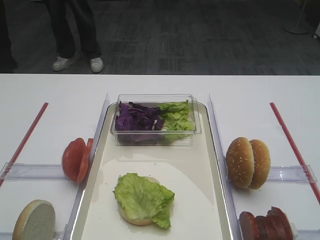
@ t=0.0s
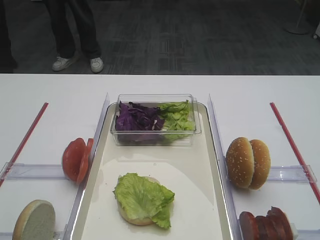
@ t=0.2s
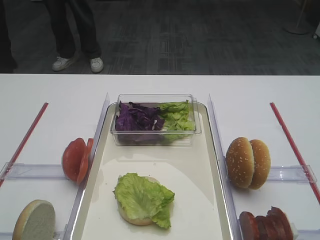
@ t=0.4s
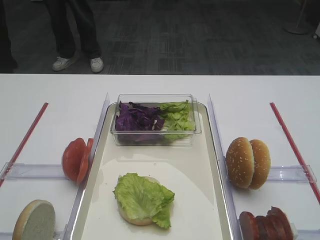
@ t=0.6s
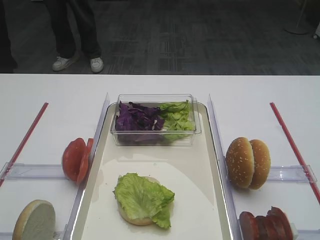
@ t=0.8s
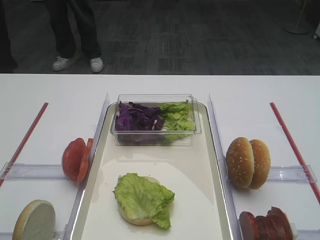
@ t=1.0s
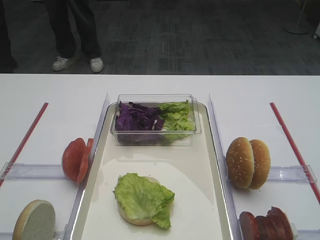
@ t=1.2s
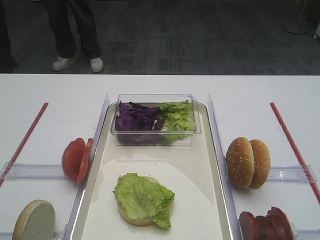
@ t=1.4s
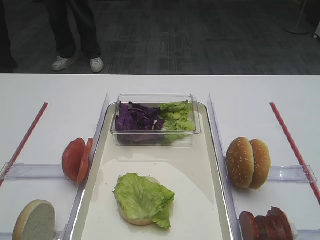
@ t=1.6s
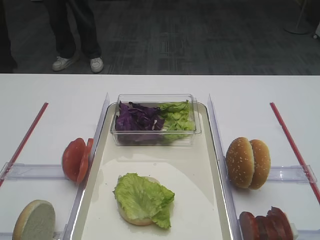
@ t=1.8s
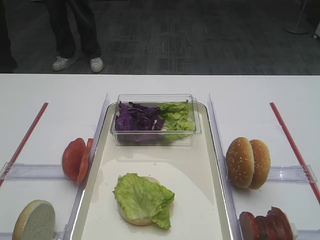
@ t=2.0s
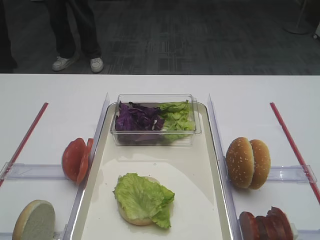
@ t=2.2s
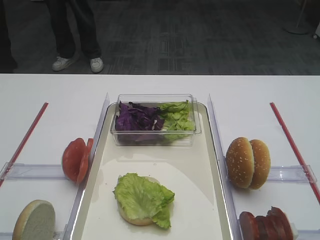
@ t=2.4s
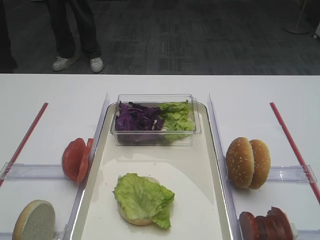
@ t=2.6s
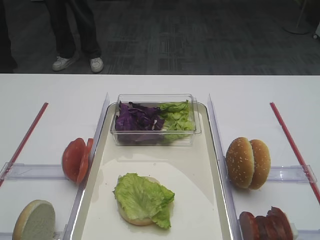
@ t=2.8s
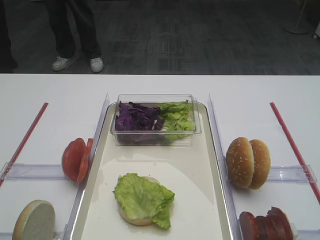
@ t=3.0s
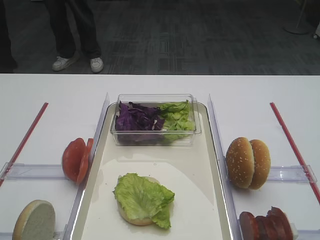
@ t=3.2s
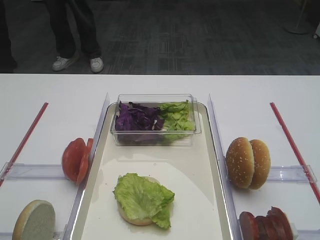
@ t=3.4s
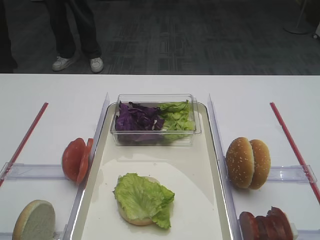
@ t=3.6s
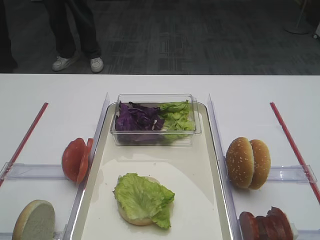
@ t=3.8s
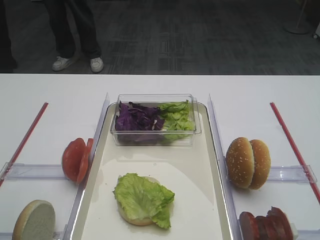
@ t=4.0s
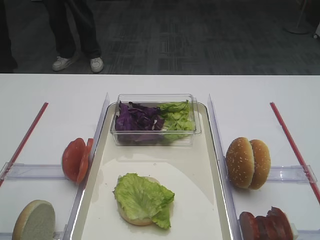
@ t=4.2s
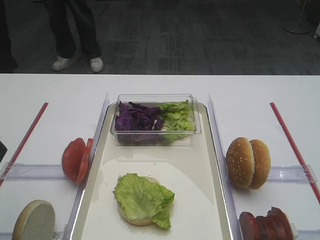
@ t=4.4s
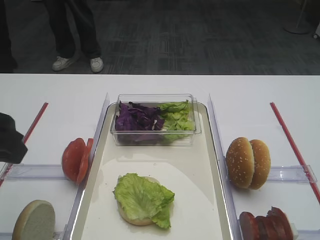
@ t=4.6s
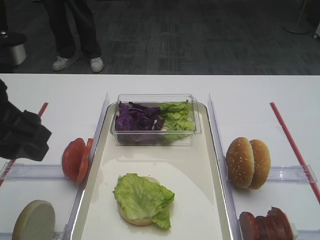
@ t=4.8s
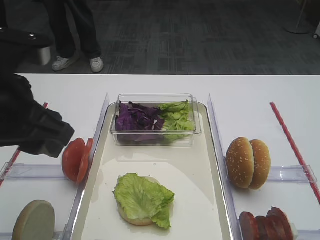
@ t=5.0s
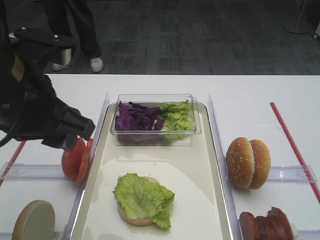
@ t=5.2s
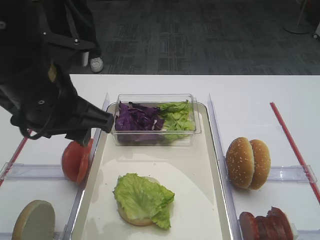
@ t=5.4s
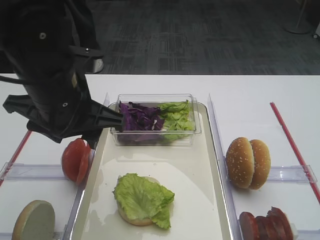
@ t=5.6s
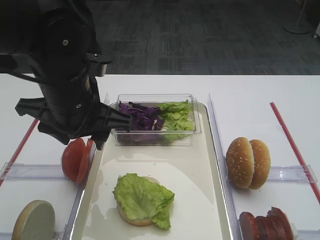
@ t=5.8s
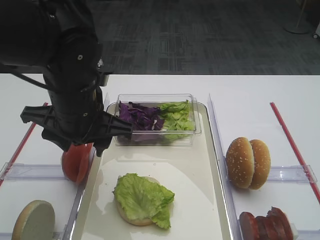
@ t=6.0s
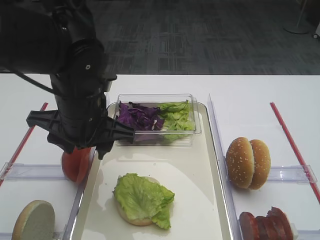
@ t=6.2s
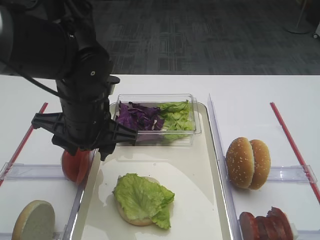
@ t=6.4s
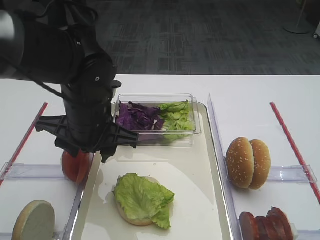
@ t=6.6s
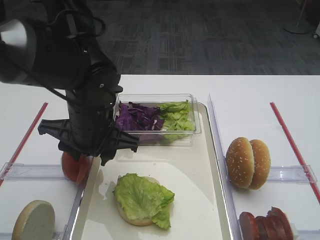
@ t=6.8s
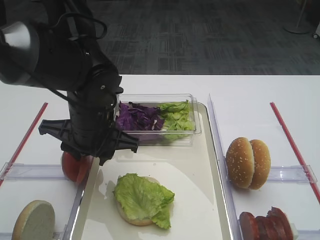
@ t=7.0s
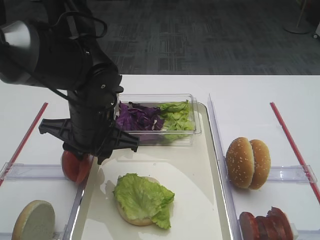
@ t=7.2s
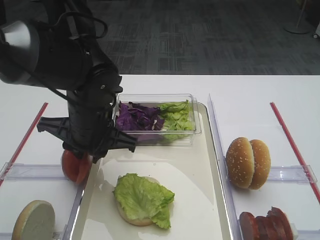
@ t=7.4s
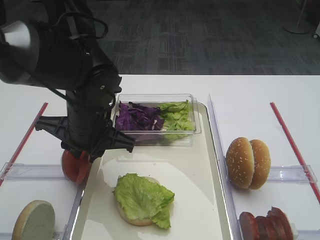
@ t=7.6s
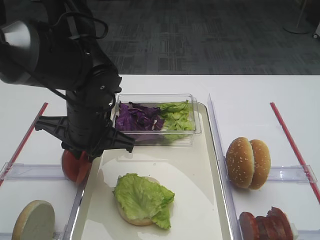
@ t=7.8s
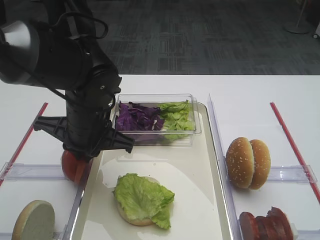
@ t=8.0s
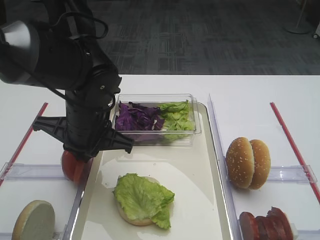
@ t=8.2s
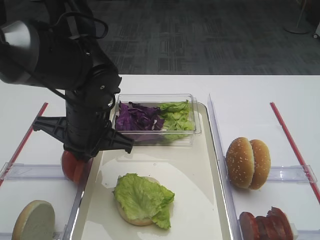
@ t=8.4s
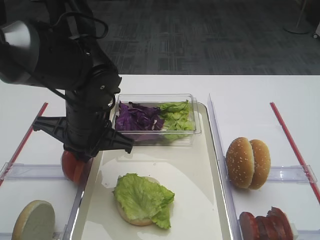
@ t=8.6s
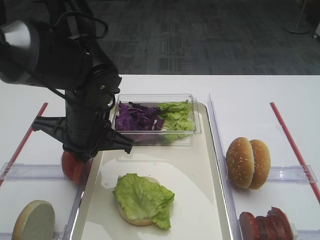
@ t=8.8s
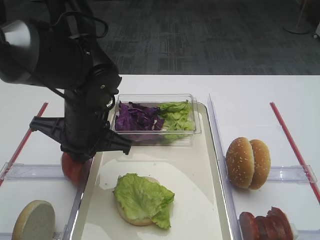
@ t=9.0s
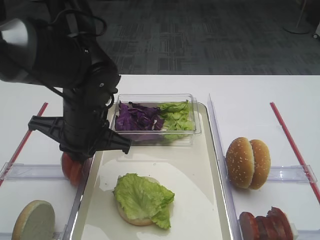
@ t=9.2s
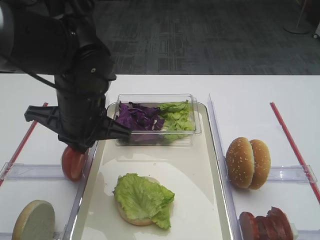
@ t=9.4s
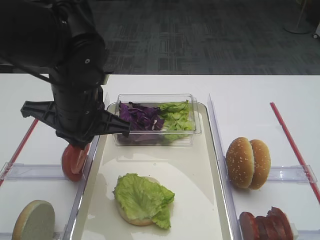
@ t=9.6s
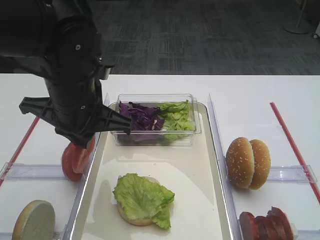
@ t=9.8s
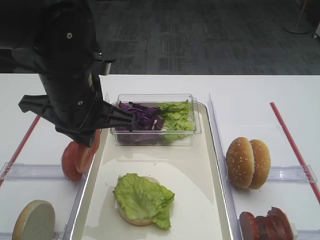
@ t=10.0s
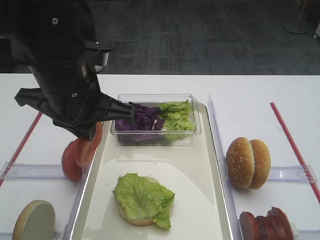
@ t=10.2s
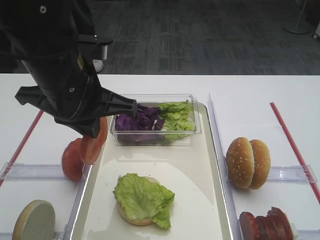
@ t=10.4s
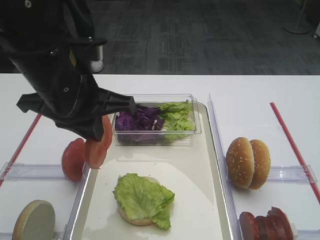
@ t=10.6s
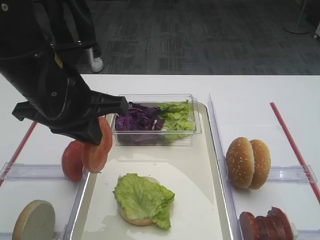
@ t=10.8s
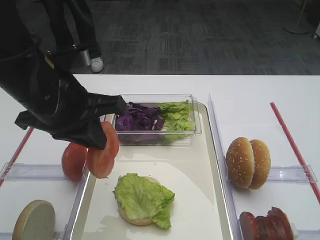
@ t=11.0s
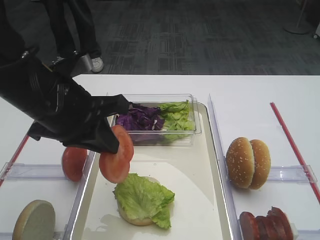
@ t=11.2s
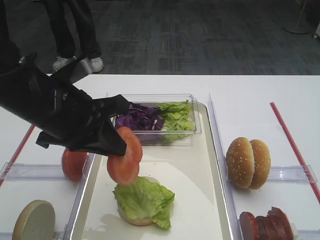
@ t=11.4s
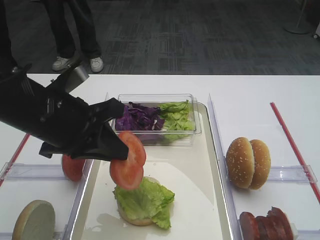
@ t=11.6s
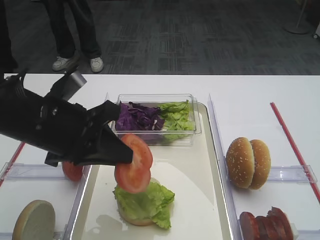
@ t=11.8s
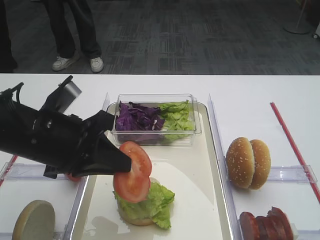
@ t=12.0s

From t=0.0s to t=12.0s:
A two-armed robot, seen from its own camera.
Step, from t=0.0s to t=9.6s: Pick up the tomato slice with the left gripper.
From t=4.4s to t=6.0s: The left gripper moves to the right, forward and downward, roughly 20 cm.
From t=6.0s to t=7.6s: The left gripper moves downward, some 5 cm, and closes.
From t=7.6s to t=9.0s: The two grippers keep their place.
From t=9.0s to t=10.4s: The left gripper heads upward, covering about 10 cm.
From t=10.4s to t=12.0s: The left gripper goes some 5 cm downward.

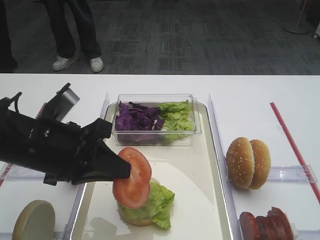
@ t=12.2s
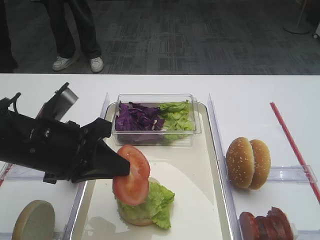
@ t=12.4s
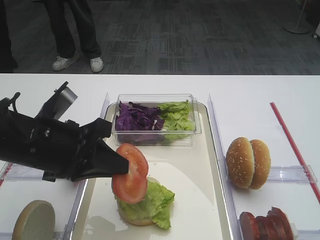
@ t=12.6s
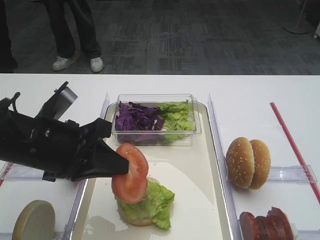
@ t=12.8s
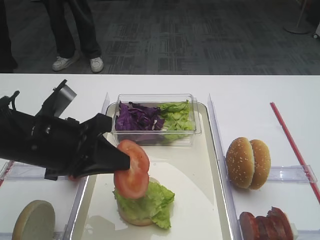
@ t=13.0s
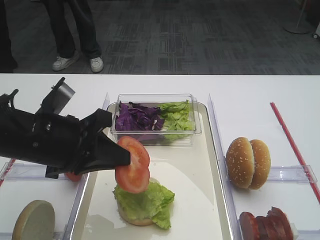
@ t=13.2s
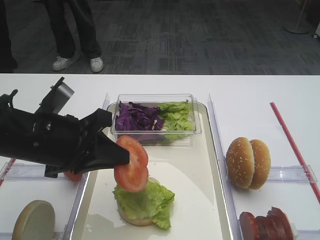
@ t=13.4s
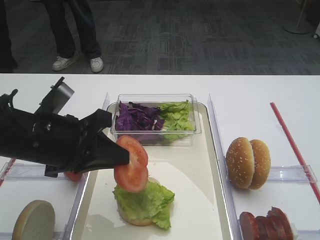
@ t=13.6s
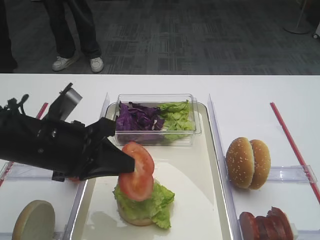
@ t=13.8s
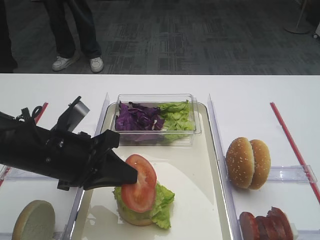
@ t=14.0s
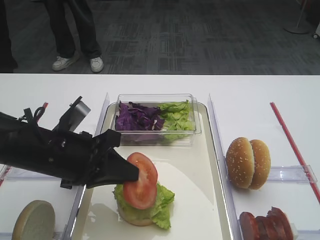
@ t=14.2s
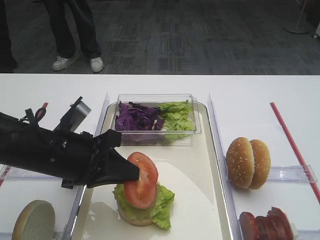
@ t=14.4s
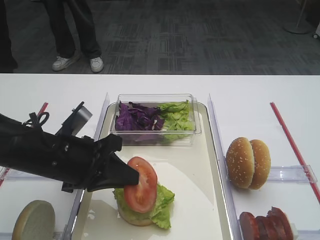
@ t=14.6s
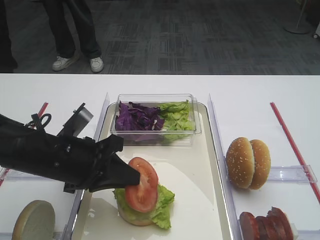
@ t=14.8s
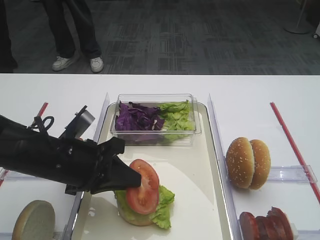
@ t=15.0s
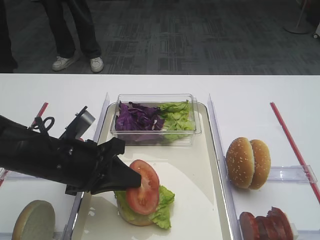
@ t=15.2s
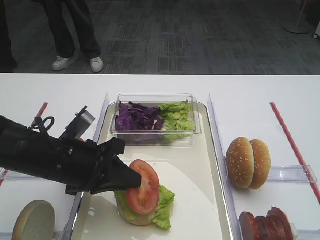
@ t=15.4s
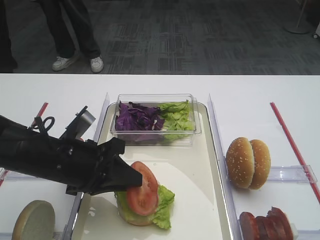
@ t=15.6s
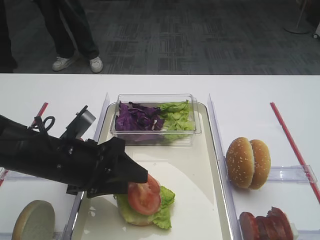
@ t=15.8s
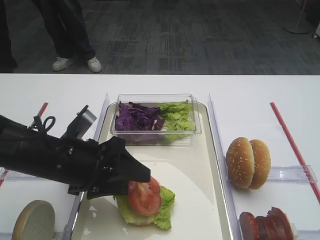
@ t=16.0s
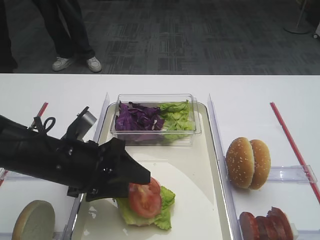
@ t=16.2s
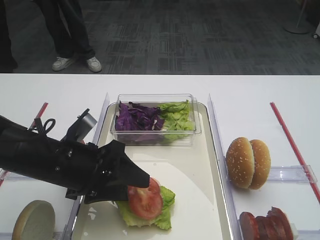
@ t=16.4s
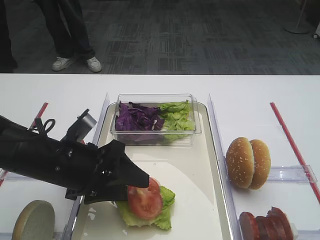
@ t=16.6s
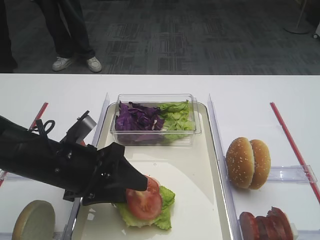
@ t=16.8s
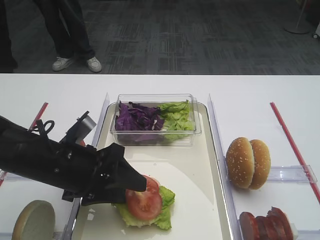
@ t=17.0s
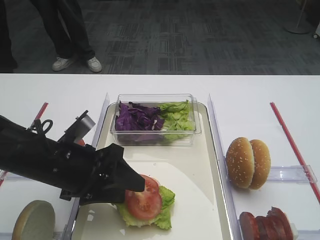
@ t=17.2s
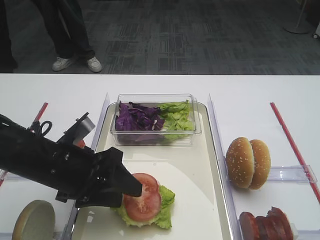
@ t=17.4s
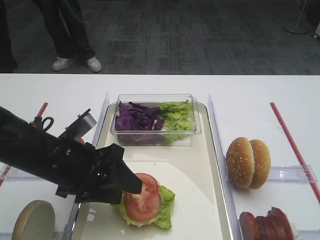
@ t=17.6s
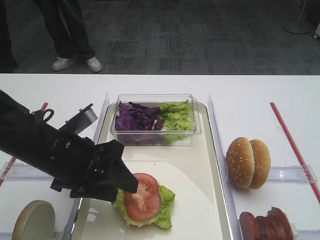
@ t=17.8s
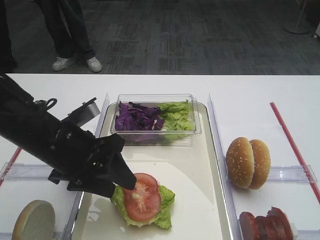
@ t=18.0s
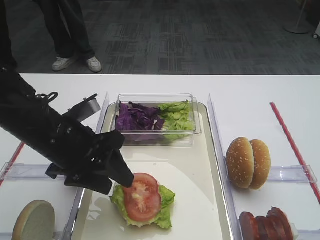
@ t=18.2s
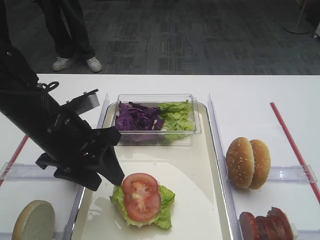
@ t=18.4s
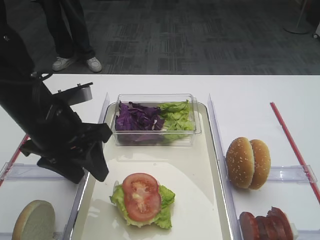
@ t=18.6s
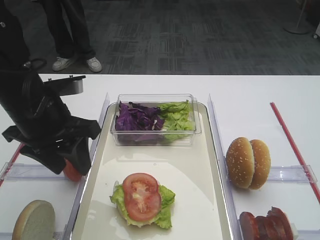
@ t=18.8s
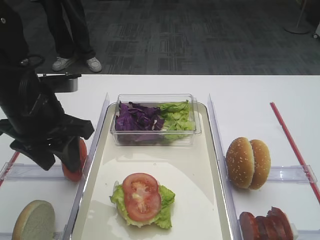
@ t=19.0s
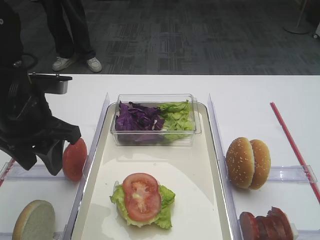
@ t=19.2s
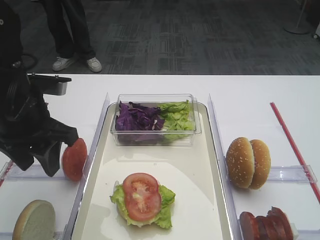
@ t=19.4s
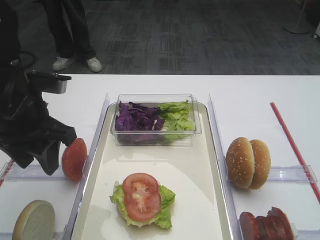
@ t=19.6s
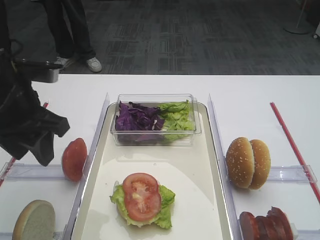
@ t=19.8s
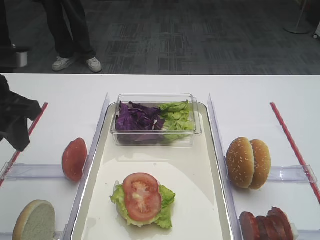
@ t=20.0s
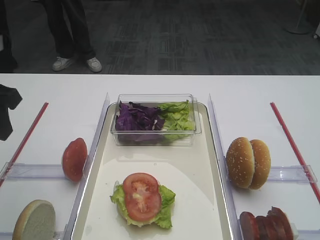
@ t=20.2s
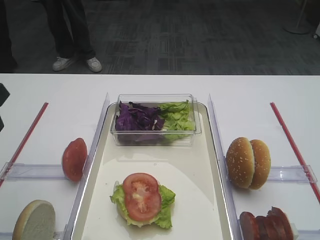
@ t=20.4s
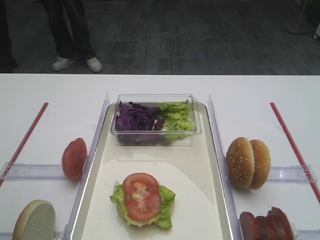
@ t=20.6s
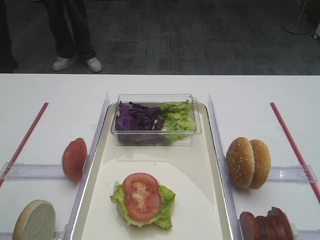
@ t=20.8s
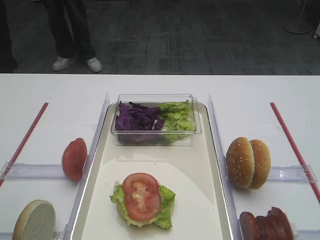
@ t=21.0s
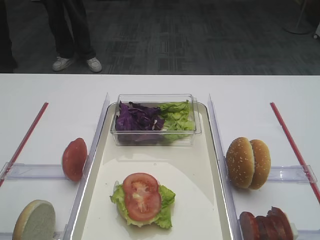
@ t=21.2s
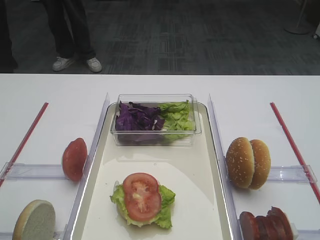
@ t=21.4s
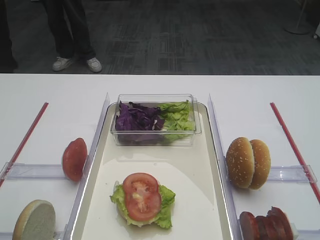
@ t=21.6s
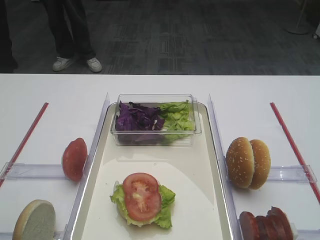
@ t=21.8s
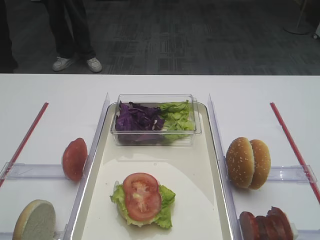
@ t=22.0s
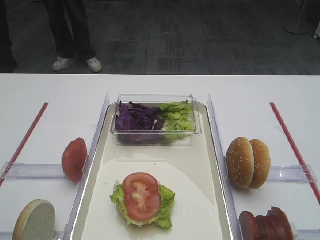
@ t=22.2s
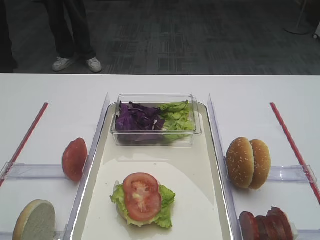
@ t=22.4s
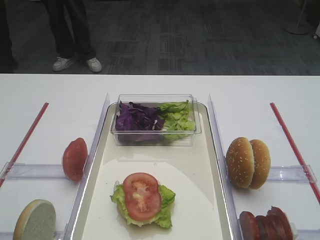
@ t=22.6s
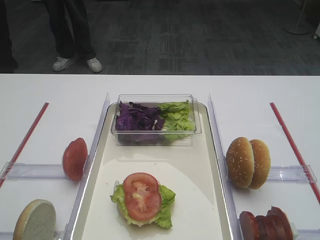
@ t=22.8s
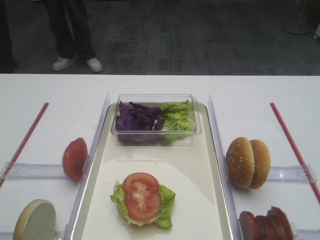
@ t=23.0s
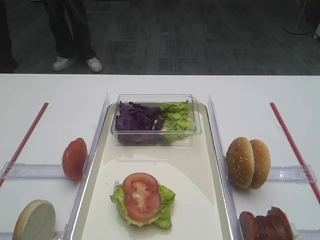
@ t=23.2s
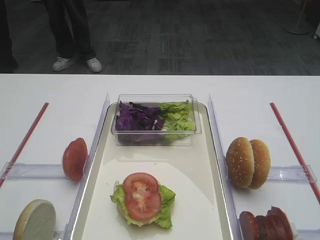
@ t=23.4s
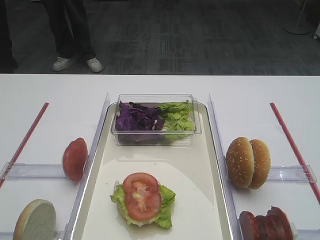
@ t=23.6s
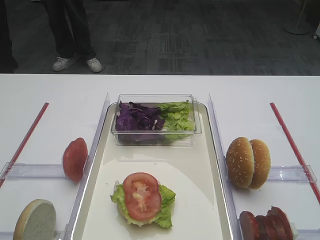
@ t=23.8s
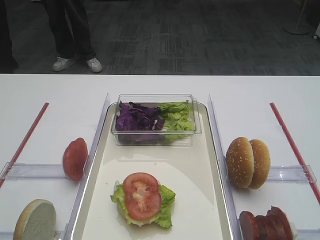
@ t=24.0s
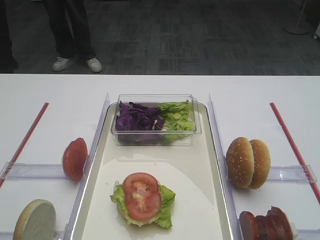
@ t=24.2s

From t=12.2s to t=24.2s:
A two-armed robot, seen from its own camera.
Step, from t=12.2s to t=18.4s: Place the tomato slice on the lettuce leaf with the left gripper.
From t=12.2s to t=13.8s: The grippers stay close to where they were, moving slightly.
From t=13.8s to t=15.2s: The left gripper moves downward, roughly 5 cm.
From t=15.2s to t=16.6s: The left gripper opens its fingers.
From t=16.6s to t=18.2s: The grippers move only a little.
From t=18.2s to t=19.8s: The left gripper moves upward and to the left, some 10 cm.
From t=19.8s to t=21.2s: The left gripper heads backward and to the left, covering approximately 15 cm.
